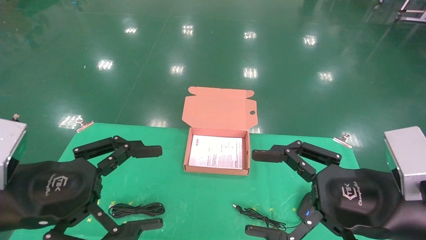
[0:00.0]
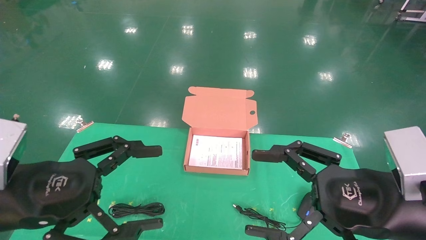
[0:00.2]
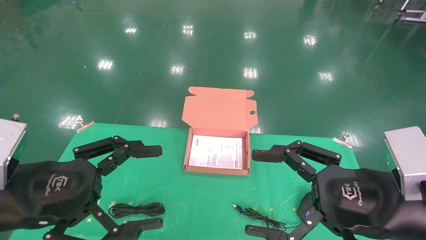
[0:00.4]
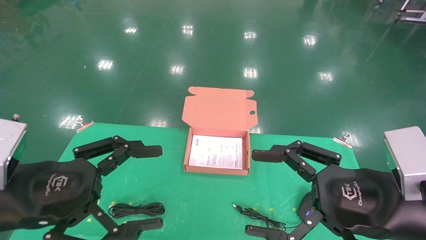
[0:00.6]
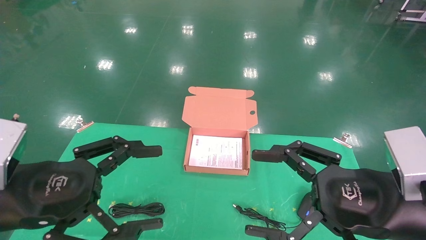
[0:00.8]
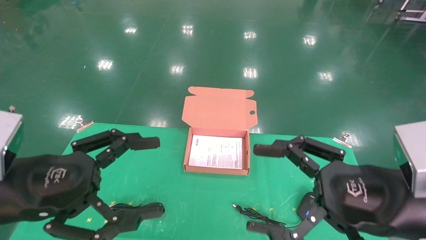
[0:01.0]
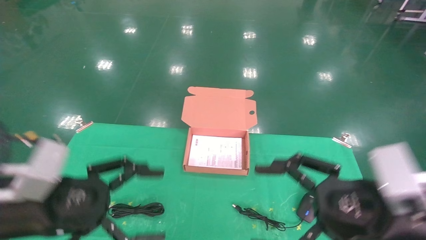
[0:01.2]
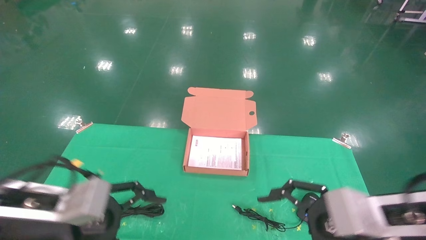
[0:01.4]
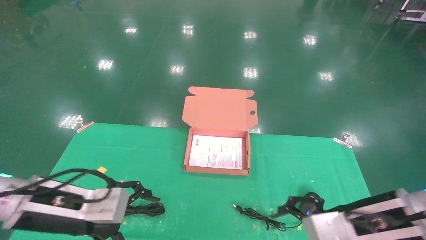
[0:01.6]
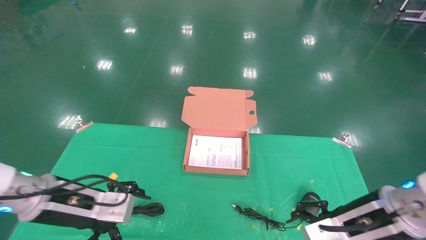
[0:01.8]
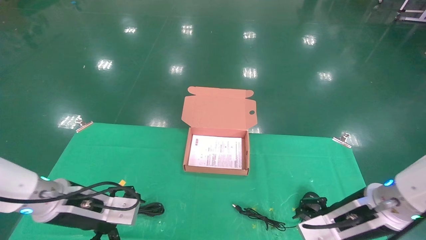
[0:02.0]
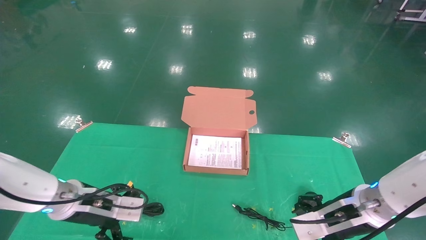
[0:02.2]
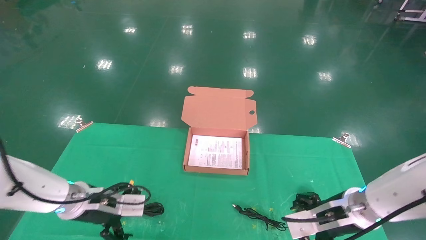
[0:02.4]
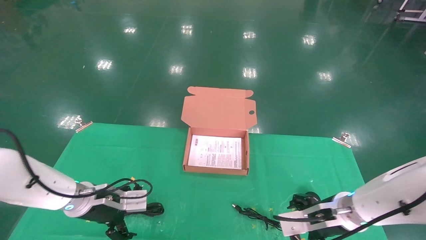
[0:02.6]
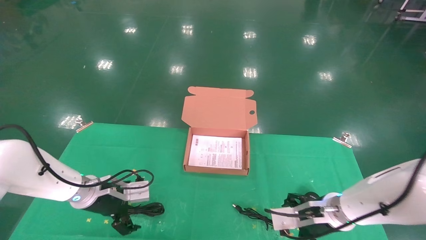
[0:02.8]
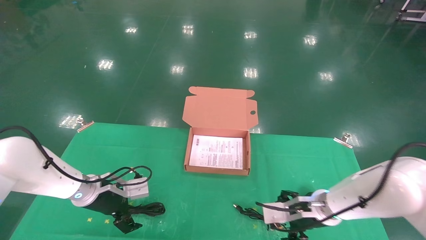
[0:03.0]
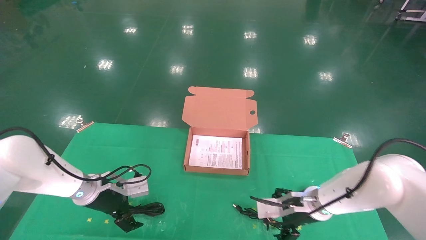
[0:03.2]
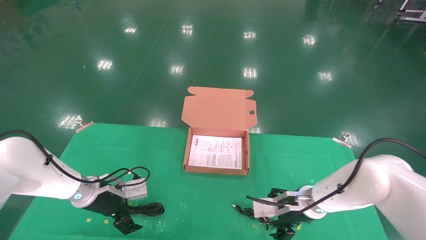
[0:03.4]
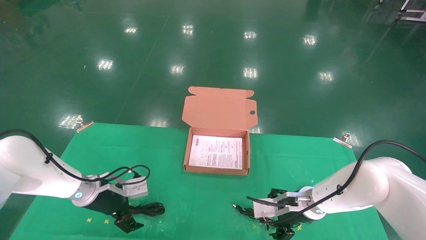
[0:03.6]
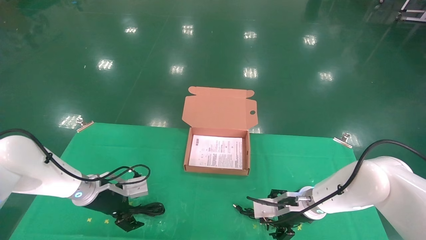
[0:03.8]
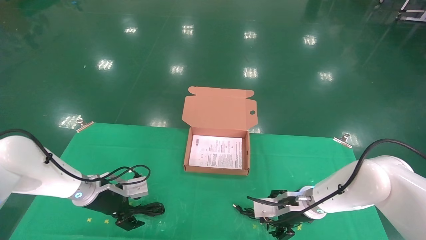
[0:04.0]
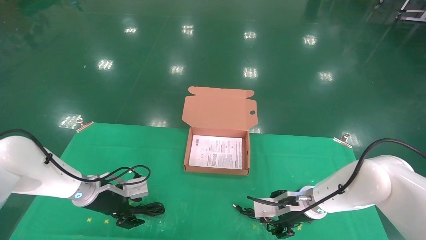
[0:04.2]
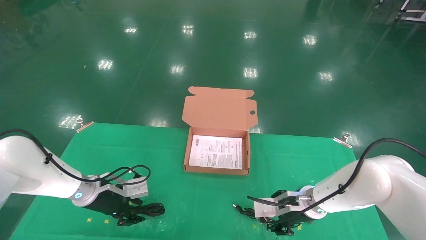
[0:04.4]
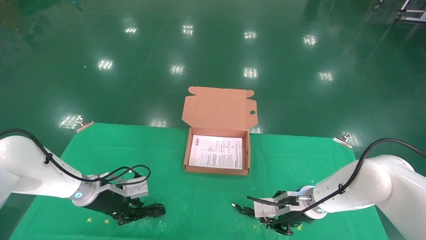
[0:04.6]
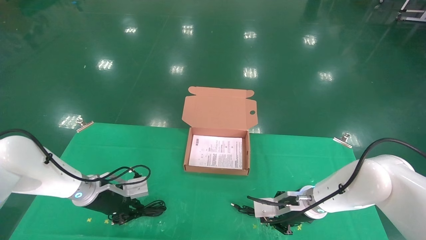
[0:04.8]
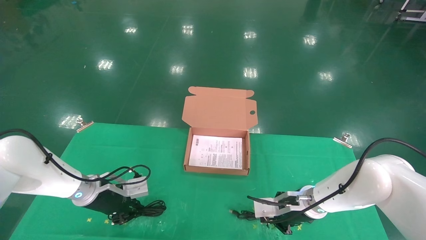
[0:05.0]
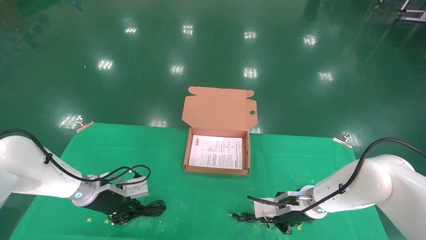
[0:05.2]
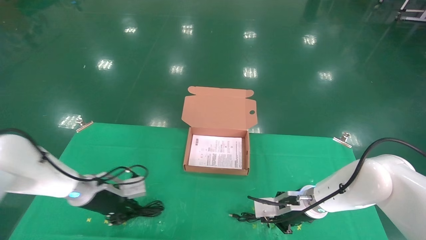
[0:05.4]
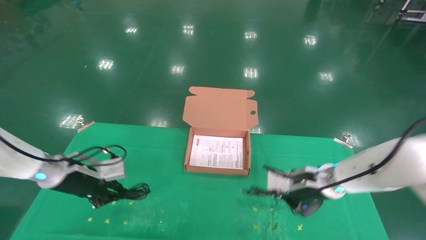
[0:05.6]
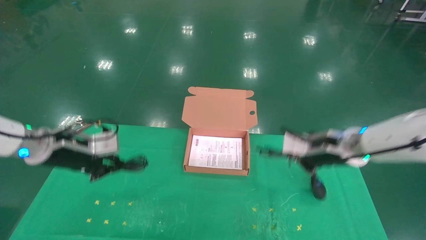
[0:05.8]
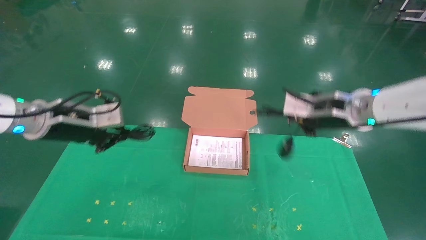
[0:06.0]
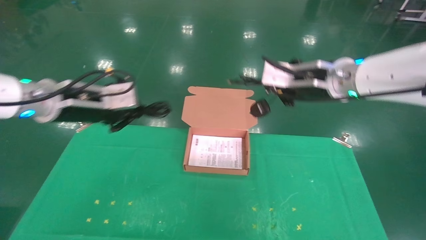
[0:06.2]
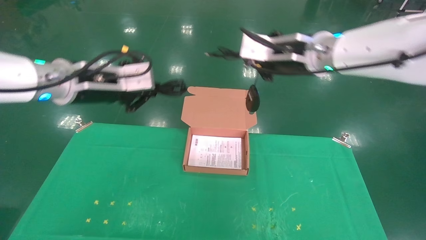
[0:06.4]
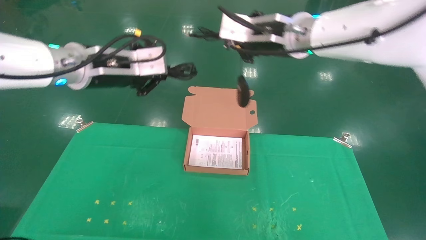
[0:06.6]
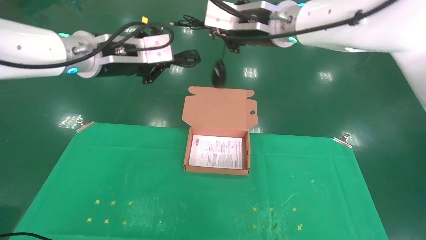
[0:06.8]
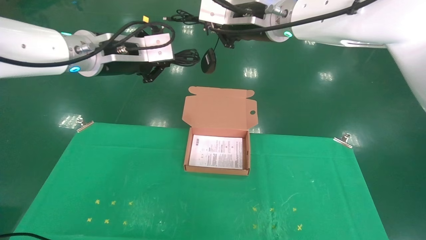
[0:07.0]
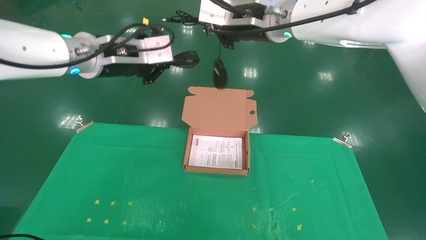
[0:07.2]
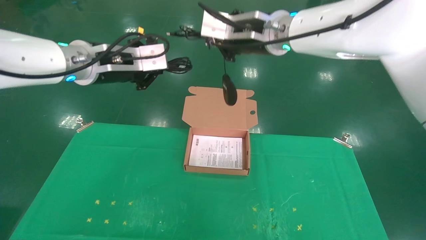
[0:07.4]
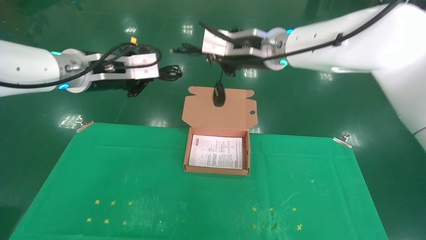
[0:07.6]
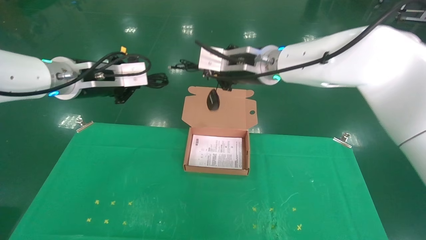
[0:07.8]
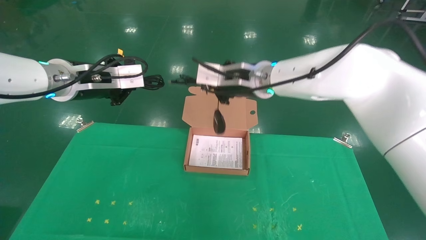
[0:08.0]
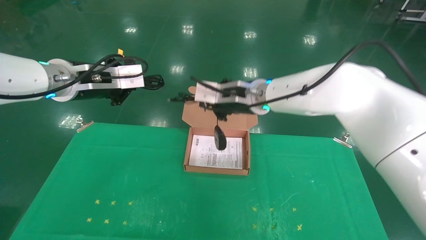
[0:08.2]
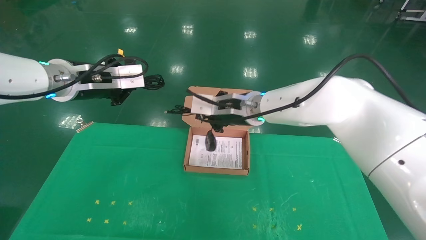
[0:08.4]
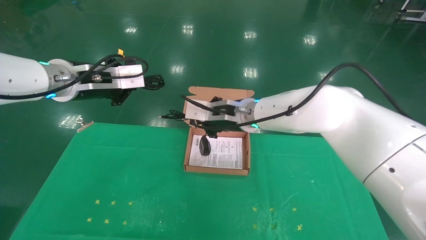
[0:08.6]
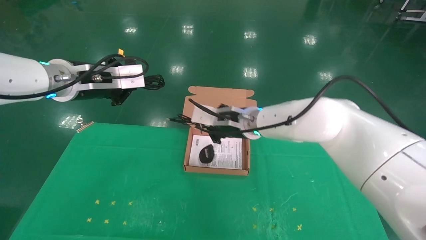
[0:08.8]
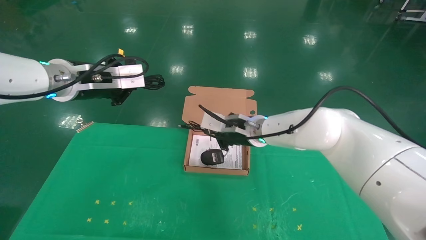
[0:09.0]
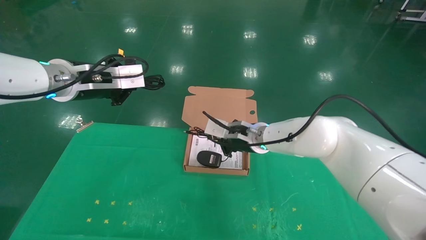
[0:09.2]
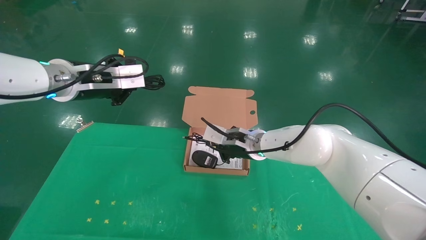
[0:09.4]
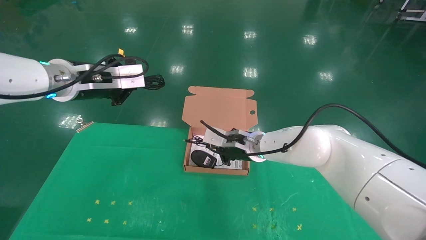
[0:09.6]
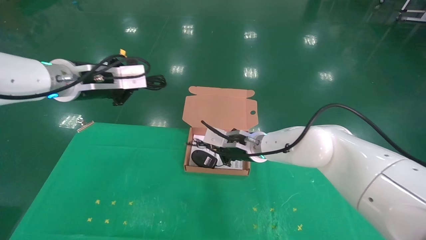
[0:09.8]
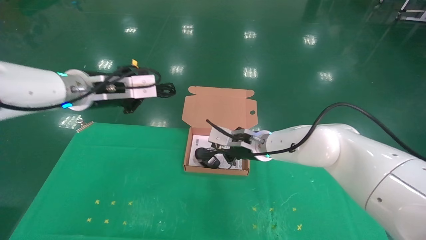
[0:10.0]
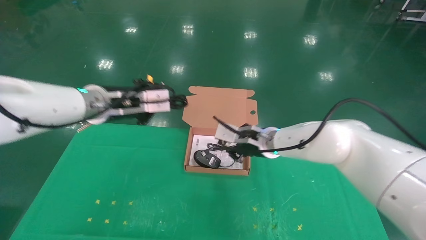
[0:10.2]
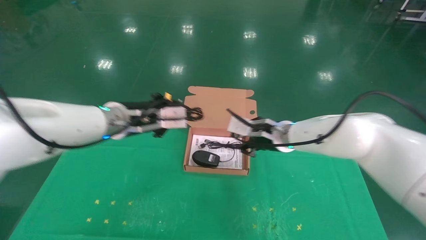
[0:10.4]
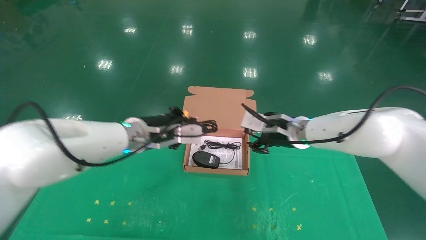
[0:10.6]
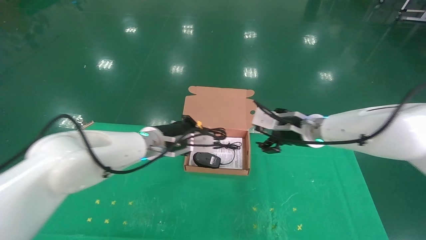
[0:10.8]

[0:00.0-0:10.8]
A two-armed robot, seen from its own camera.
Task of the whole recording: grasp data cable left put into box grasp mouse right put into box.
Step, 0:01.2 to 0:06.4: Grab and pick up both the mouse and power cord from the accessory packaging area at the same time.
0:00.0 to 0:01.6: Both grippers move forward and downward, roughly 10 cm.
0:01.6 to 0:03.0: The grippers both shift forward and downward by roughly 20 cm.
0:03.0 to 0:04.6: The right gripper closes its fingers. Meanwhile the left gripper closes.
0:04.6 to 0:06.2: The grippers both shift upward by approximately 25 cm. The right gripper closes up.
0:06.2 to 0:07.8: The right gripper moves to the left, about 10 cm.
0:07.8 to 0:09.2: The right gripper shifts approximately 15 cm downward.
0:09.2 to 0:10.8: The left gripper travels downward, to the right and forward by roughly 20 cm. Meanwhile the right gripper shifts about 10 cm to the right, and opens its fingers.

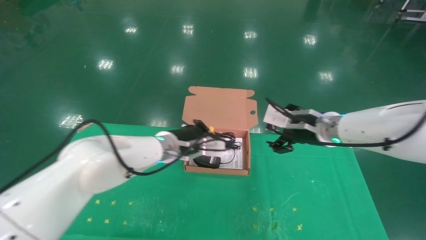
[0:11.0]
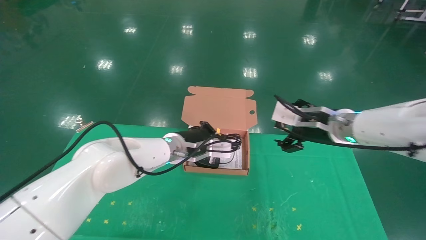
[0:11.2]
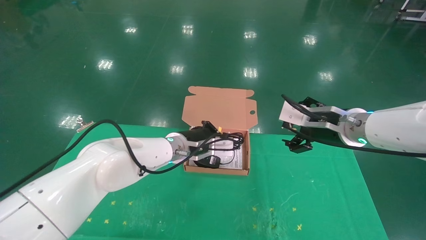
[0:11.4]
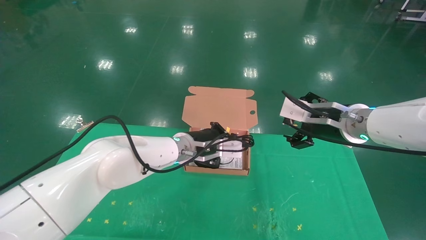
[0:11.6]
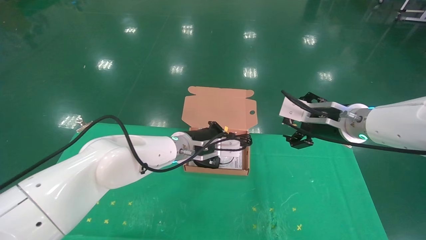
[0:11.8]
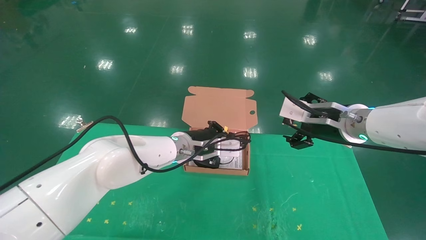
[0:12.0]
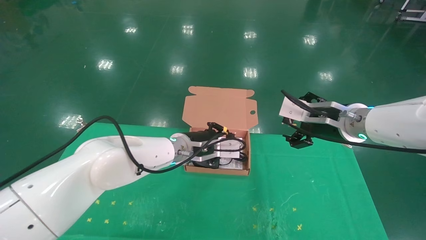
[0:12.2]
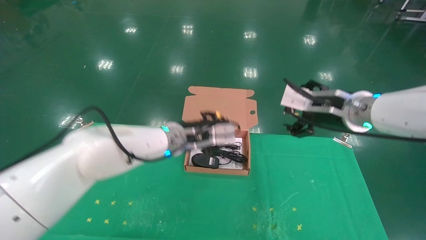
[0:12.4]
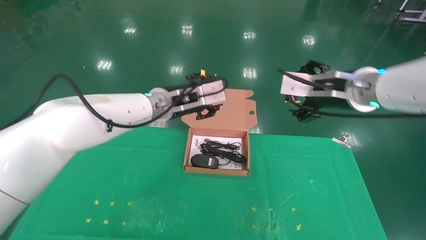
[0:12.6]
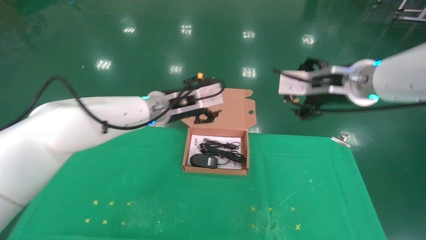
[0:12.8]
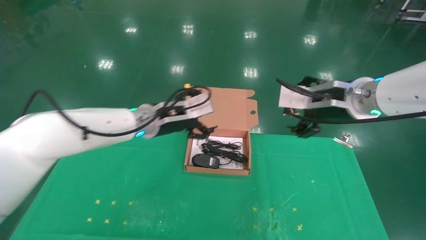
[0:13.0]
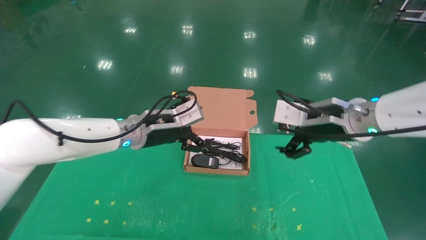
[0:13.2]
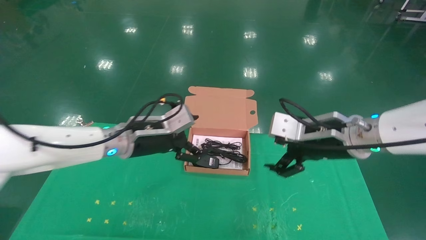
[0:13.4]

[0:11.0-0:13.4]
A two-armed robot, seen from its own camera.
Task of the whole recording: grasp data cable left put into box grasp mouse right put into box.
0:11.0 to 0:12.2: The right gripper ends up approximately 5 cm from where it was.
0:12.2 to 0:13.4: The right gripper shifts by roughly 5 cm. Meanwhile the left gripper travels to the left by roughly 10 cm, and opens.

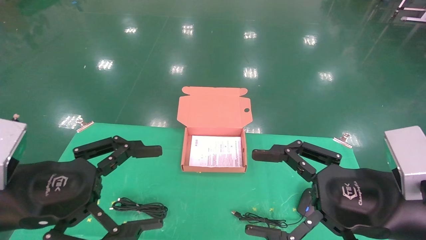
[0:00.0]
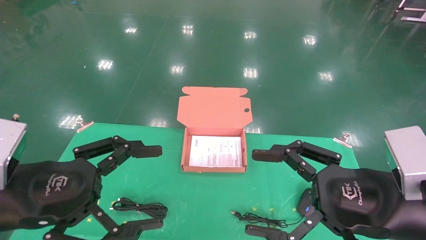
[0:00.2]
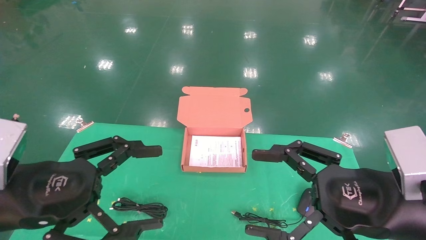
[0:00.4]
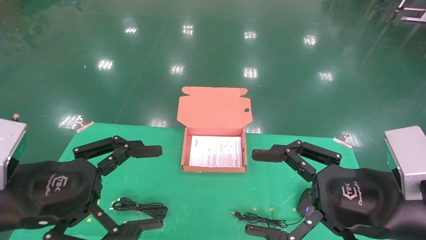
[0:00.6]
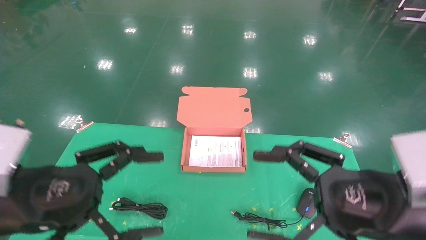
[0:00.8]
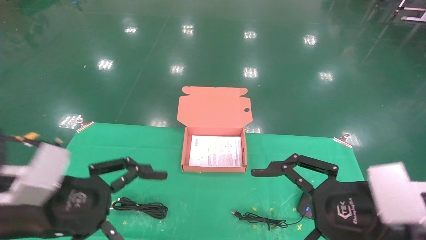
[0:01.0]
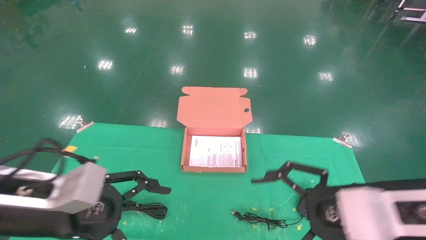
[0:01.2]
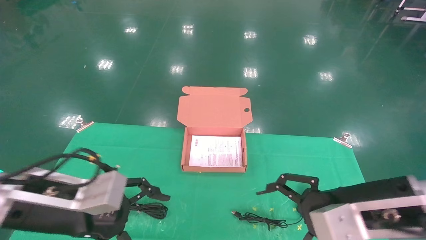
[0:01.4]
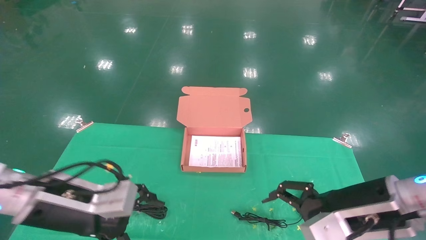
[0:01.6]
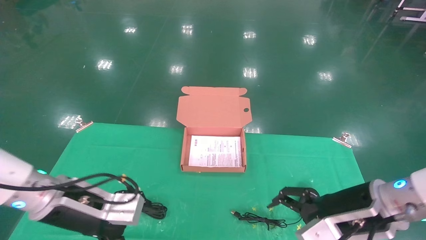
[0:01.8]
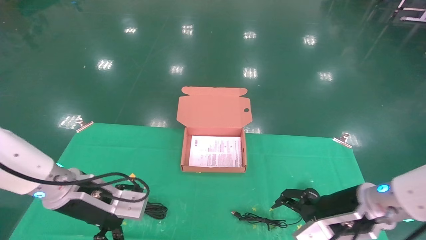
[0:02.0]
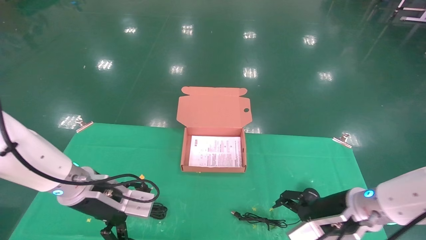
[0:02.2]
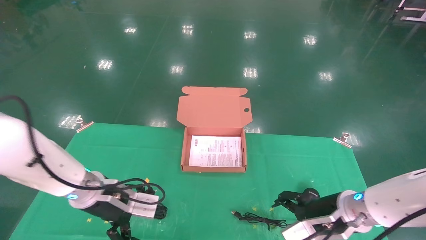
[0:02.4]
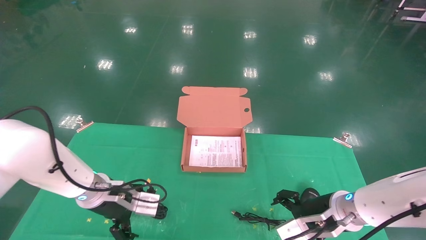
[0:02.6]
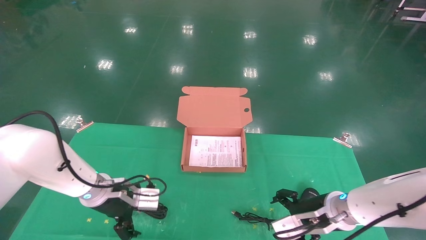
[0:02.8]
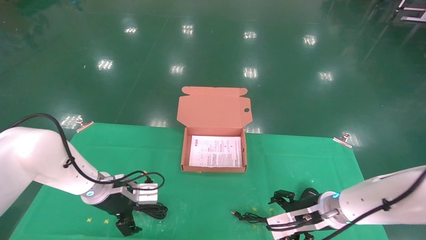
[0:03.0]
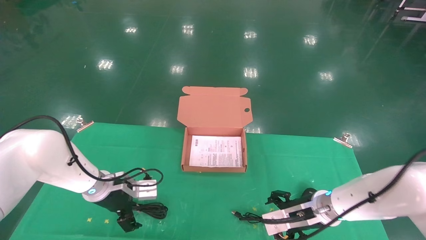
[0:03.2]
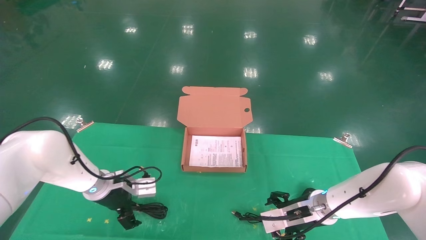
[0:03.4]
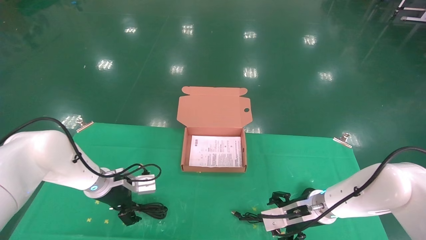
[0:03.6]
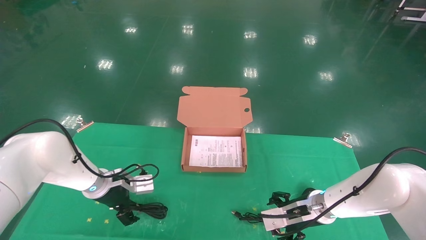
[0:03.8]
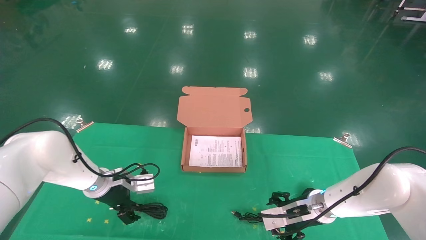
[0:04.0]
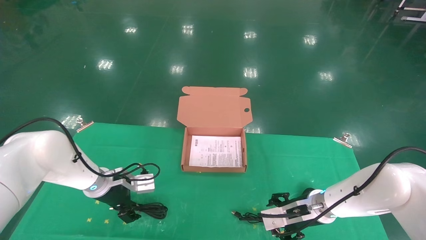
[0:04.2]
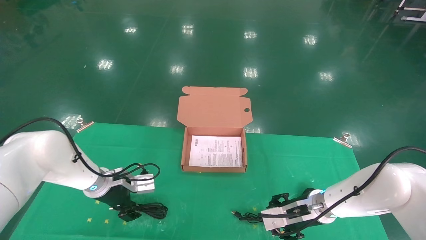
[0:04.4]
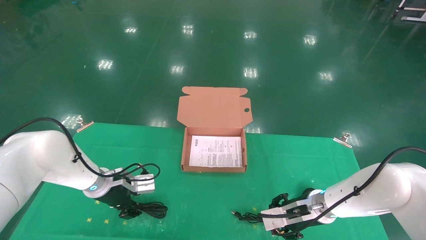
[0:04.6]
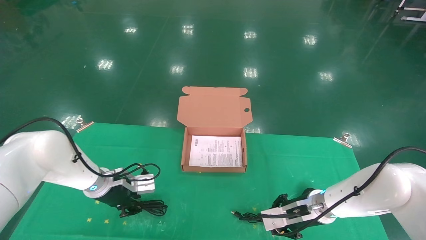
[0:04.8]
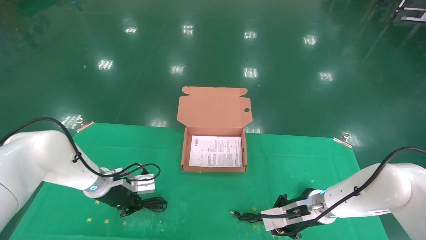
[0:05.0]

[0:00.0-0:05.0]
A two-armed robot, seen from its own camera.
Task of the whole recording: grasp data cable left put into box grasp mouse right put into box.
0:00.0 to 0:01.6: The right gripper is displaced forward by about 5 cm. Meanwhile the left gripper heads forward and downward, covering about 10 cm.
0:01.6 to 0:03.4: Both grippers travel together forward and downward, some 20 cm.
0:03.4 to 0:05.0: The right gripper closes up; the left gripper closes up.
